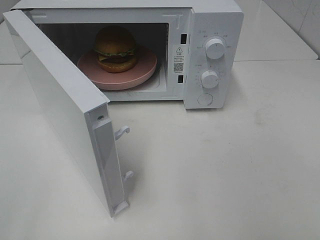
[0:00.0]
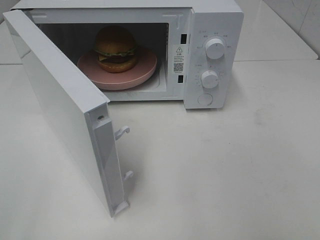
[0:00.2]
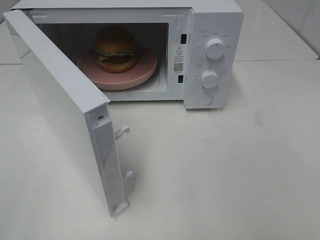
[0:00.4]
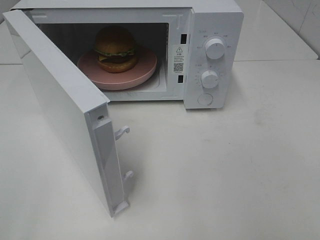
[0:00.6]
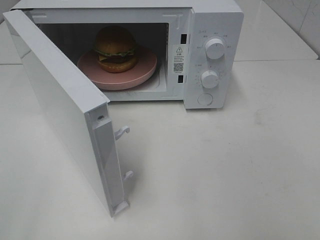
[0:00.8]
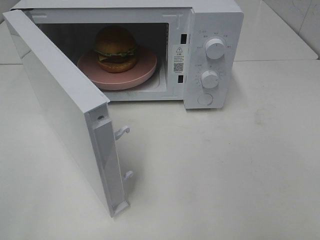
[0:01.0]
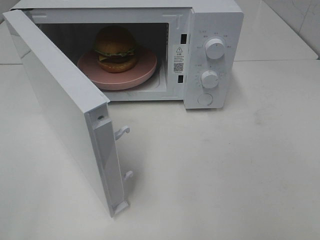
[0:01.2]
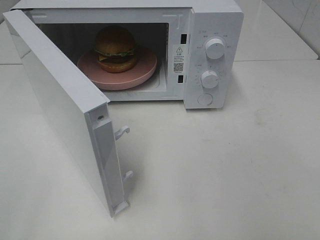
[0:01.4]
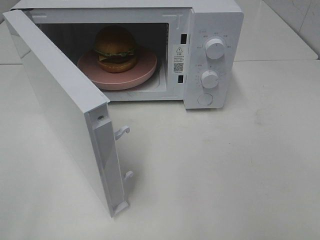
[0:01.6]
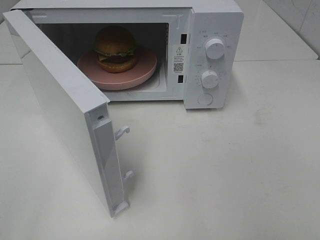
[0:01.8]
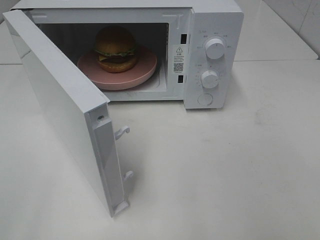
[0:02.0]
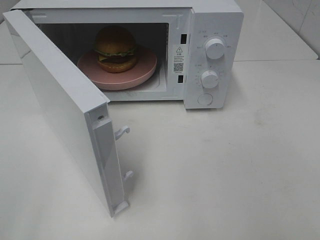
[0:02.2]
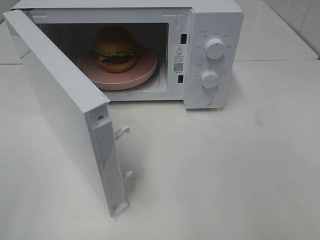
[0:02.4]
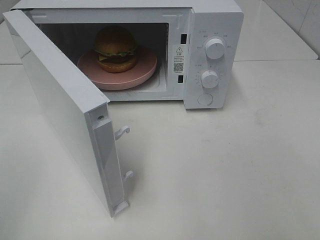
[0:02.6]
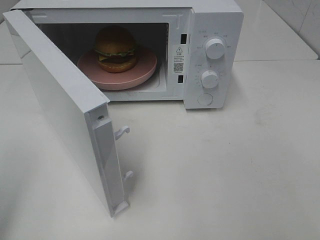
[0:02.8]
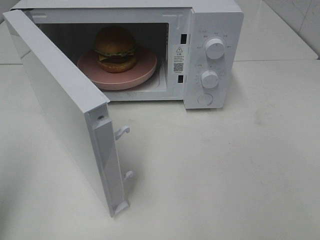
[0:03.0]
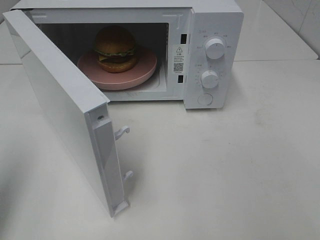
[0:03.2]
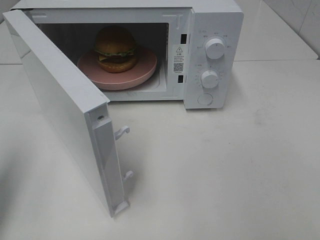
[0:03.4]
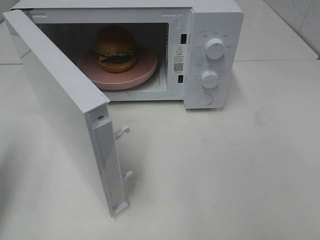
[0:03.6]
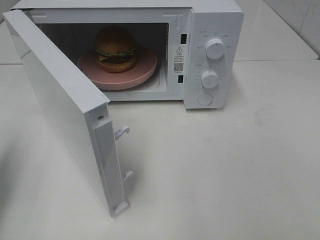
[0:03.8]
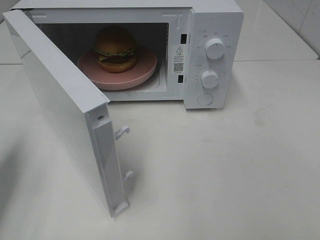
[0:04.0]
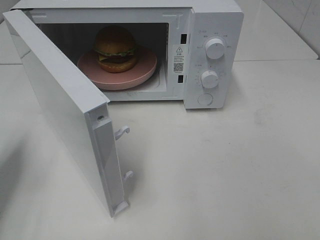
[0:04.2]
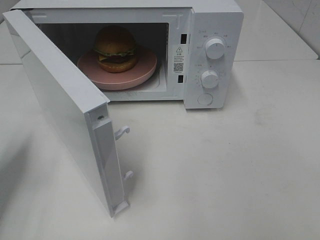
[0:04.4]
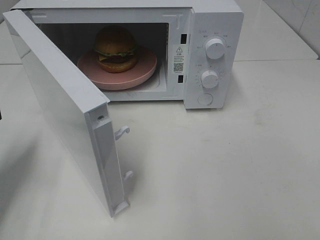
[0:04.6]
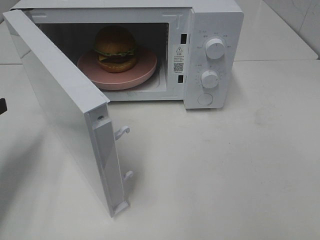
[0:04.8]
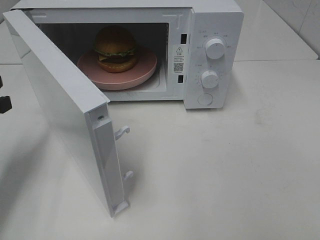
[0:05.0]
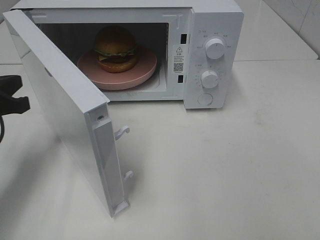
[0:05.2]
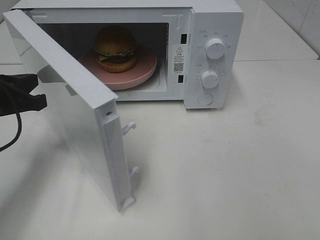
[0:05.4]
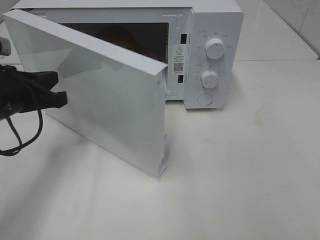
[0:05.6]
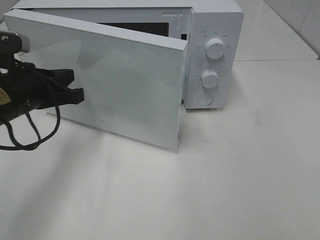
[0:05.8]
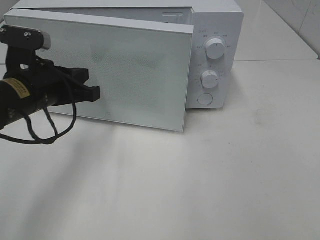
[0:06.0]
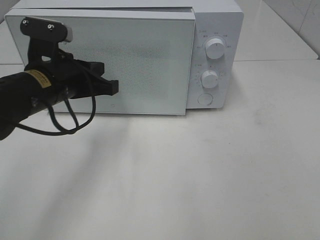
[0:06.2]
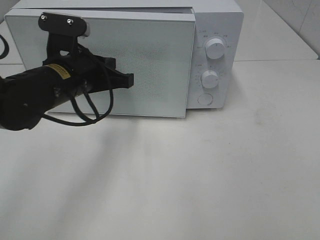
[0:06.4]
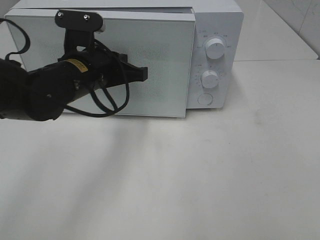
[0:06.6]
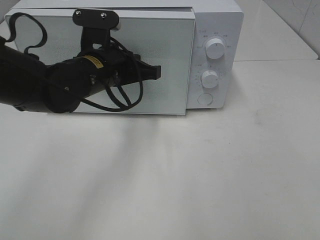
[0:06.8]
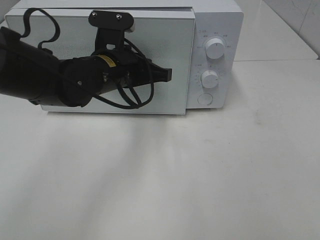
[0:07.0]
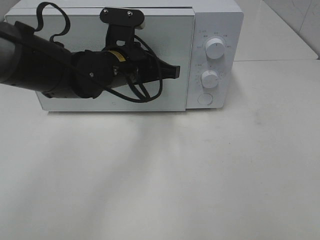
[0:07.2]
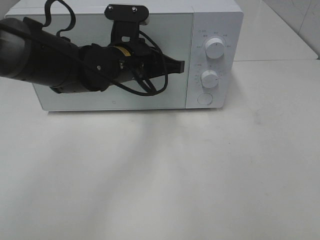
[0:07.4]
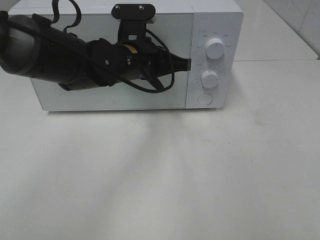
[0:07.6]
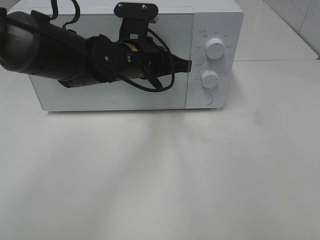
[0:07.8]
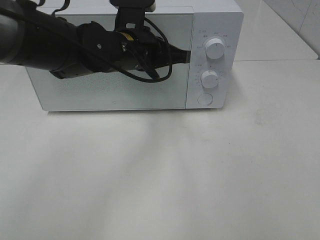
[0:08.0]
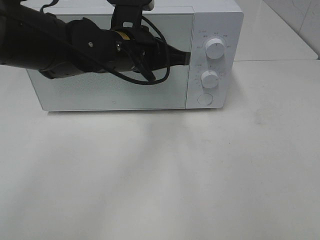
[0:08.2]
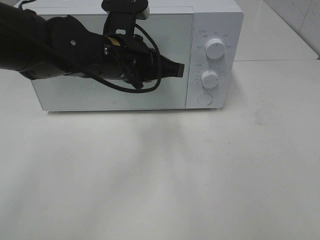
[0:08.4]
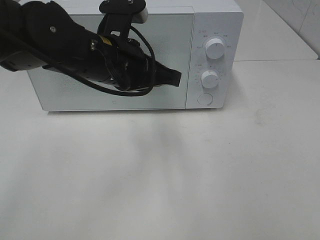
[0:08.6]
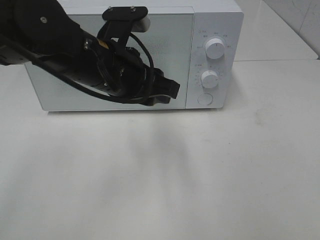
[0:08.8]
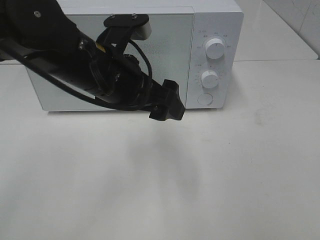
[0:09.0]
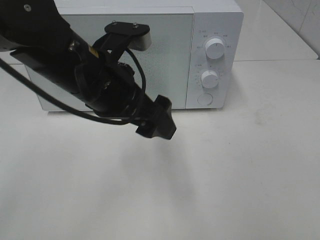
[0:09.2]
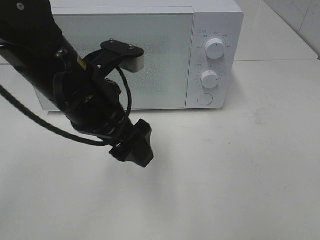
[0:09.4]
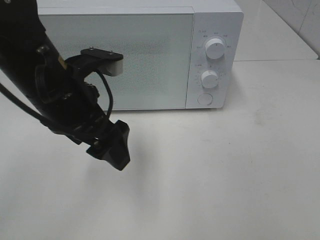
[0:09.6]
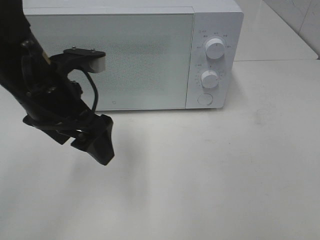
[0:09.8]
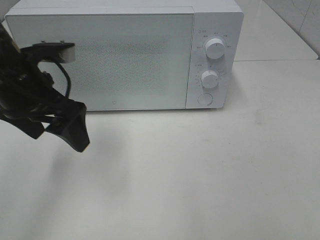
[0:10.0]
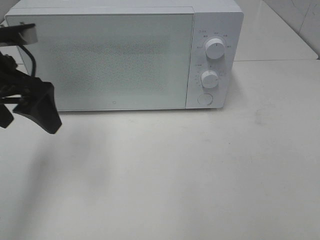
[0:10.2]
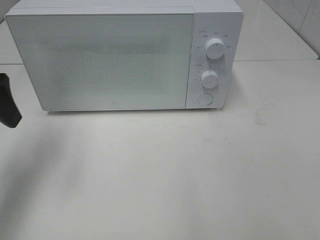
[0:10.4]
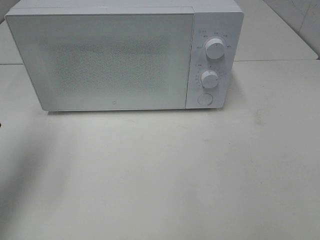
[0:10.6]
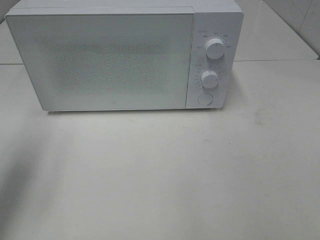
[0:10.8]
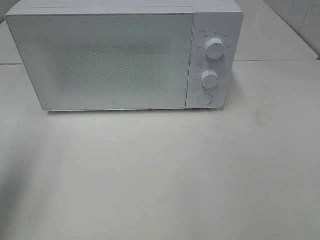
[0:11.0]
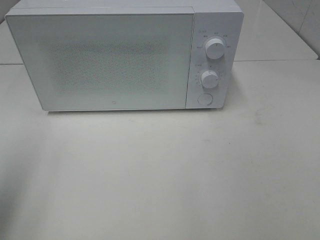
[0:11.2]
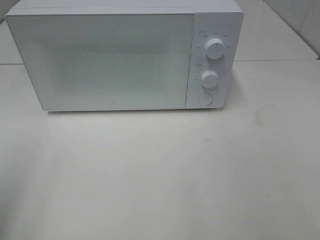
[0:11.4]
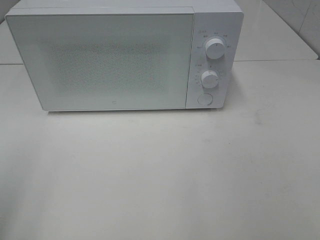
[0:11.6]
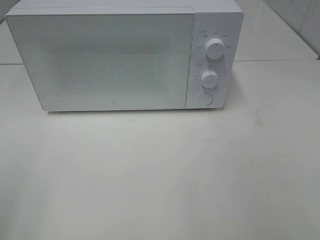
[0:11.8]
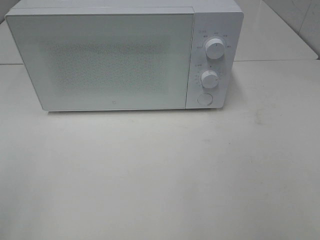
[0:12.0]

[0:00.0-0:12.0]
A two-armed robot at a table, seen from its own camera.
Task of the whole recording: Heat the burger.
Step, 0:00.0 to 0:08.0: Left hand: close the microwave door.
0:00.0 to 0:01.6: Both grippers stay about where they are.
0:01.6 to 0:03.0: The left gripper moves forward, approximately 10 cm, and closes.
0:03.0 to 0:04.4: The left gripper is displaced downward and forward by approximately 15 cm.
0:04.4 to 0:06.0: The left gripper heads to the right and forward, covering roughly 15 cm.
0:06.0 to 0:07.6: The left gripper shifts some 15 cm to the right and forward.
0:07.6 to 0:09.0: The left gripper moves backward, roughly 10 cm, and opens.
0:09.0 to 0:10.4: The left gripper shifts roughly 20 cm to the left.
0:10.4 to 0:12.0: The left gripper shifts approximately 25 cm backward.

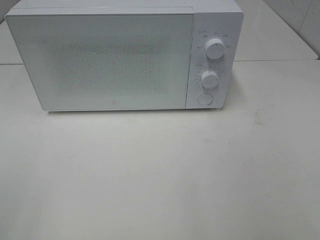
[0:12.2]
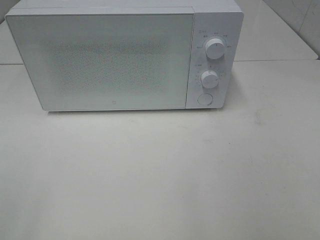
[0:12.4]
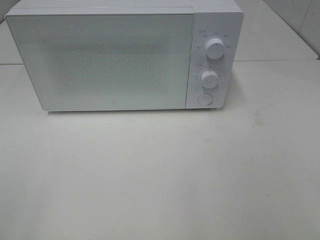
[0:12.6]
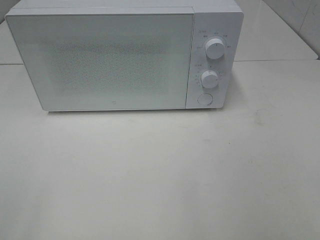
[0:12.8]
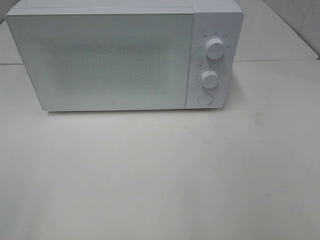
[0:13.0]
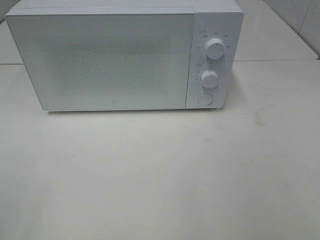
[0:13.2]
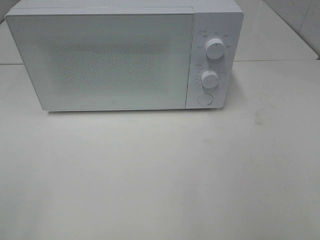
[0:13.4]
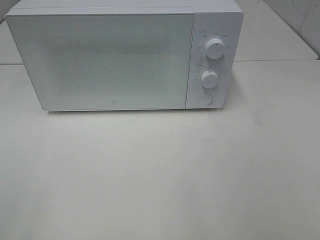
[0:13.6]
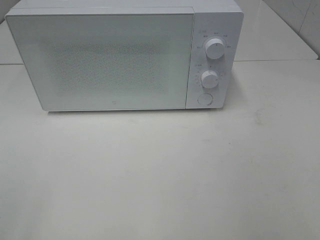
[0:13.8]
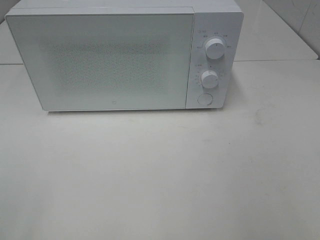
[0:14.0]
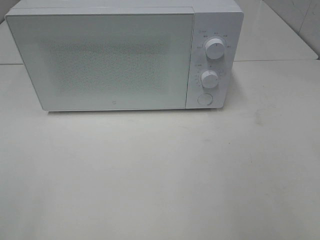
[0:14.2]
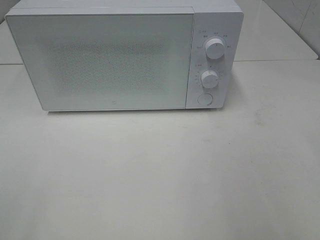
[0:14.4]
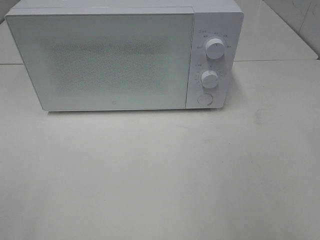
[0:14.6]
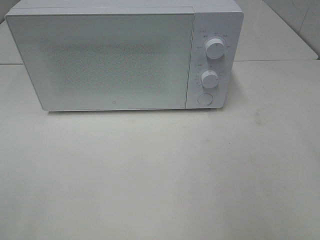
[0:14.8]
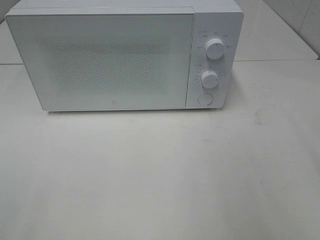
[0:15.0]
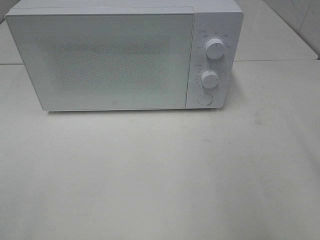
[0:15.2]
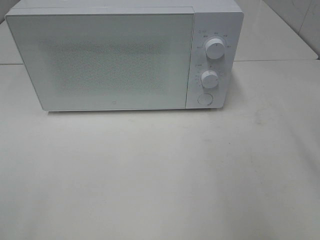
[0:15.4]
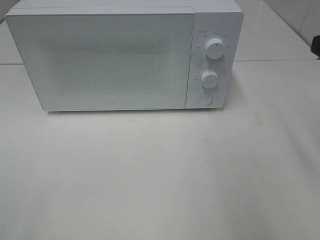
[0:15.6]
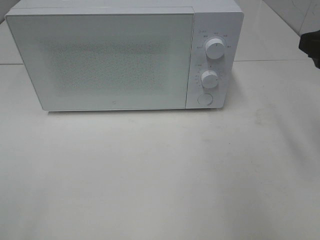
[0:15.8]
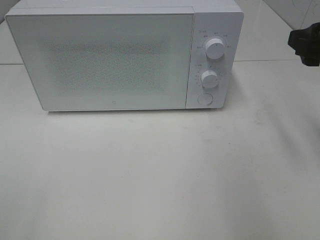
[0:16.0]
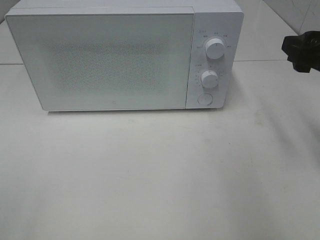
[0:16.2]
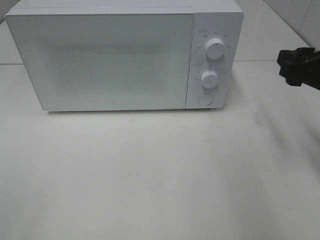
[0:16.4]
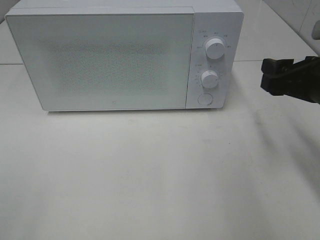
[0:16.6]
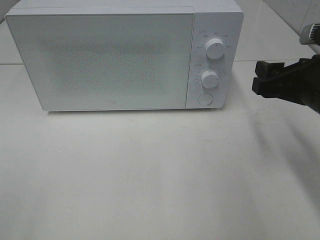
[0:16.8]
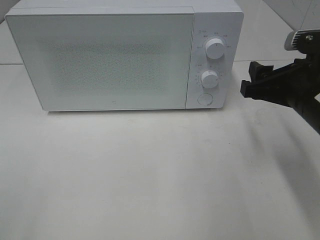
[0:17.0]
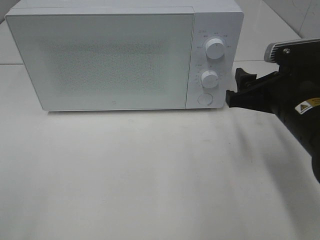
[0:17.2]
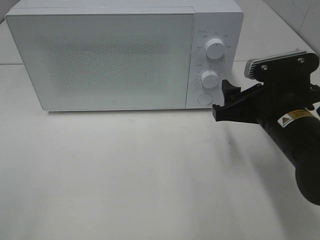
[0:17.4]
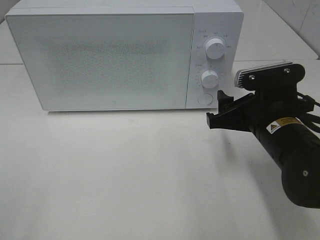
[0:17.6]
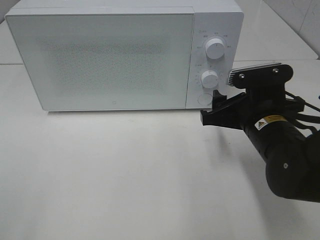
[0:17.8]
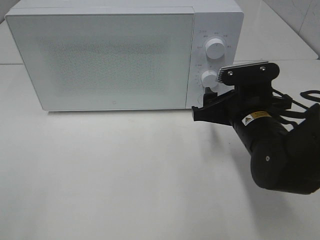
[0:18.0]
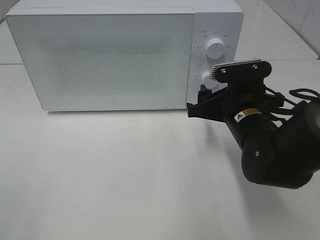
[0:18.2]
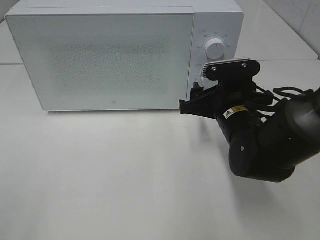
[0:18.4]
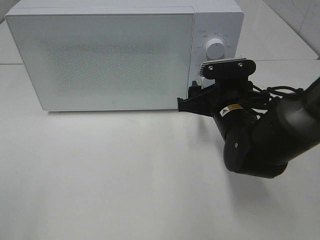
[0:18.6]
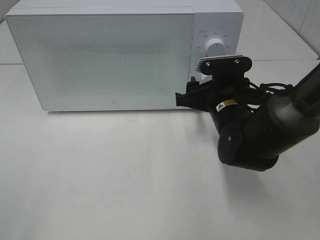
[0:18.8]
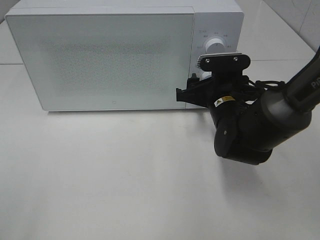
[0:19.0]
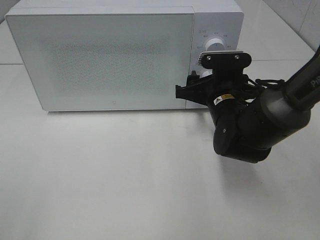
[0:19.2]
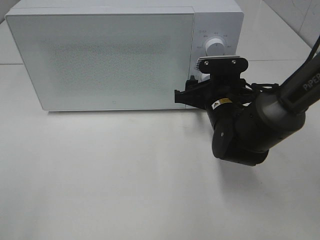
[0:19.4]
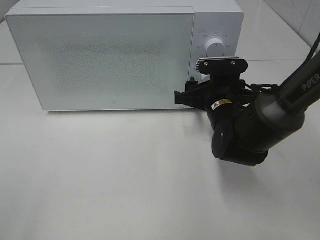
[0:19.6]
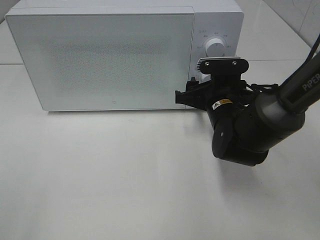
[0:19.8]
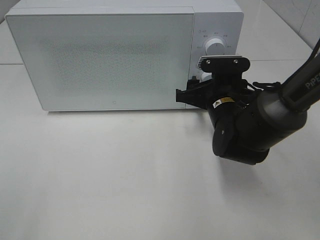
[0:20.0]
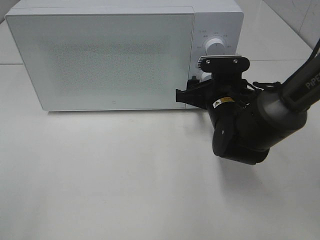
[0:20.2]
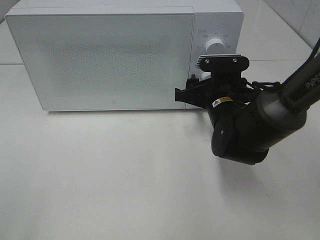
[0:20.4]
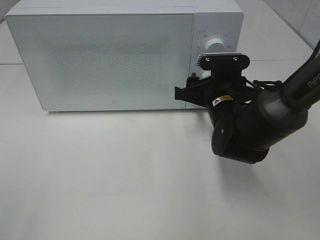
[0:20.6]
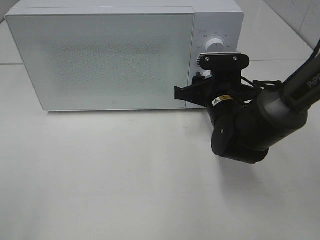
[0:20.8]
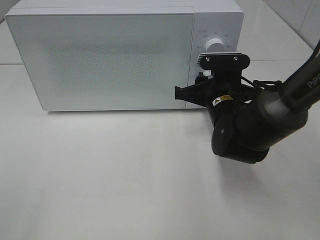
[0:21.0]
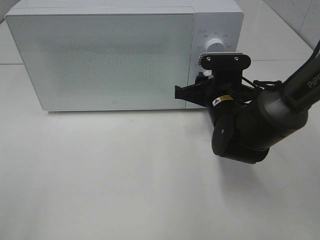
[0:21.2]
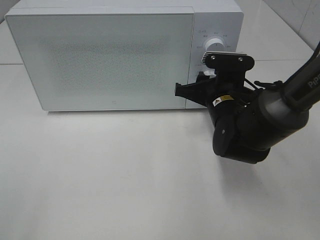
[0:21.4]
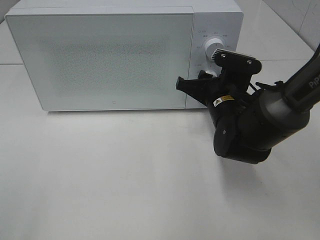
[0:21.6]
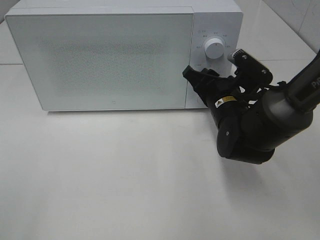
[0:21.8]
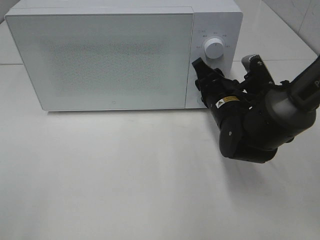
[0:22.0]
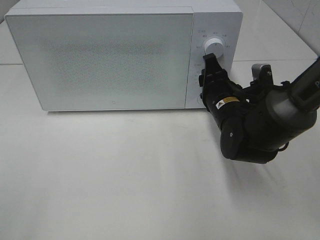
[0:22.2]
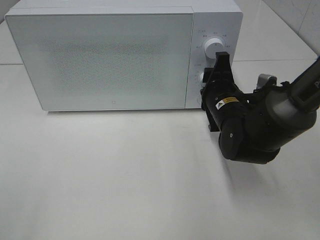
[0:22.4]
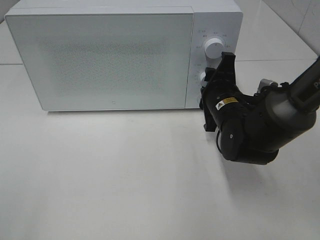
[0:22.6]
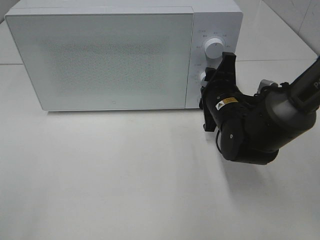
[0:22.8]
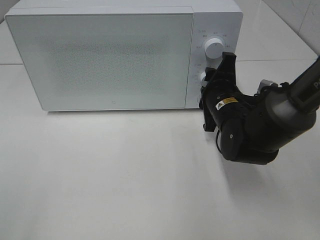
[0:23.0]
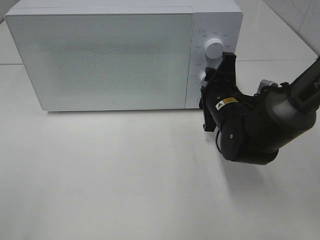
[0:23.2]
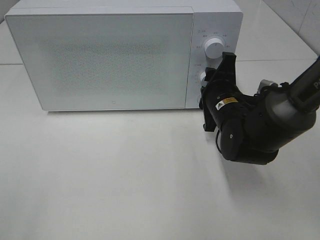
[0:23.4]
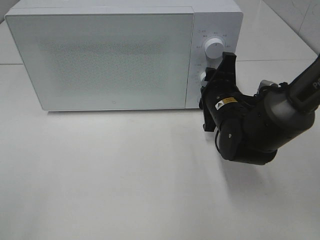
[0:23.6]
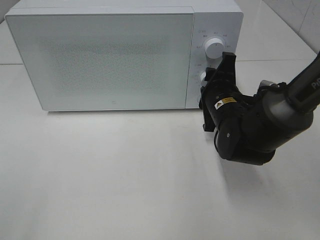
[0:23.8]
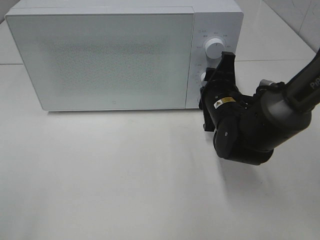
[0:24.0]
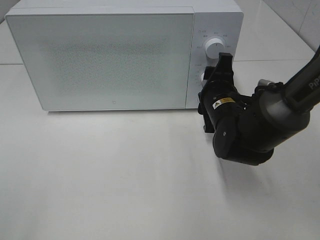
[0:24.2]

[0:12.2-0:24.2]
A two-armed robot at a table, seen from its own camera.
Task of the whole recording: Heat the burger.
0:15.2 to 0:16.6: The right gripper is displaced downward and forward by some 10 cm.
0:16.6 to 0:18.2: The right gripper moves to the left and downward, some 15 cm.
0:18.2 to 0:19.8: The right gripper moves forward, roughly 5 cm.
0:19.8 to 0:21.2: The right gripper closes.
0:22.6 to 0:24.2: The grippers make only small movements.
